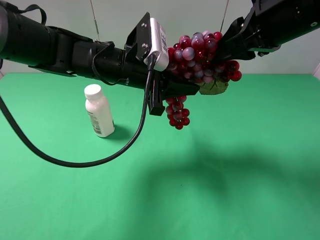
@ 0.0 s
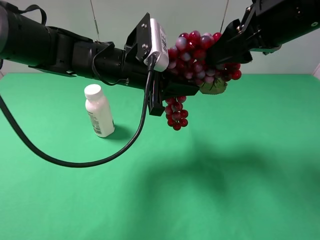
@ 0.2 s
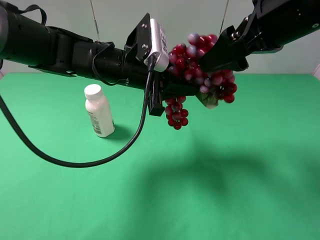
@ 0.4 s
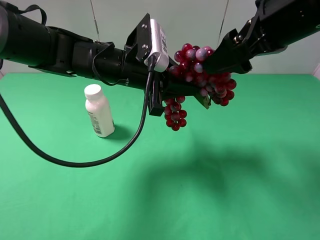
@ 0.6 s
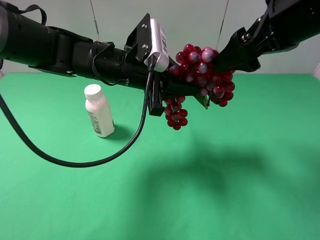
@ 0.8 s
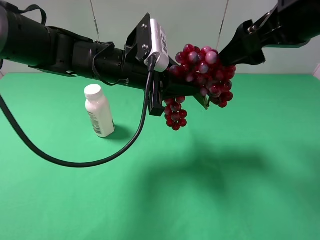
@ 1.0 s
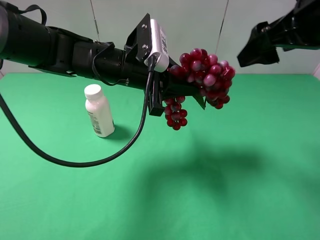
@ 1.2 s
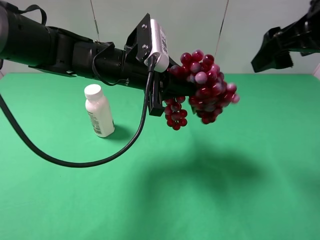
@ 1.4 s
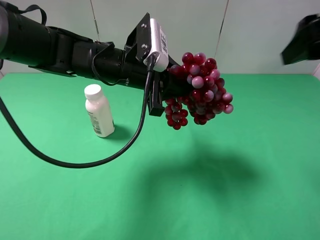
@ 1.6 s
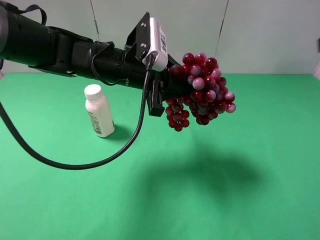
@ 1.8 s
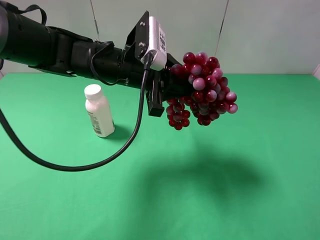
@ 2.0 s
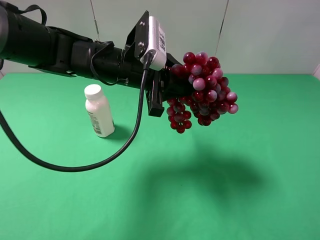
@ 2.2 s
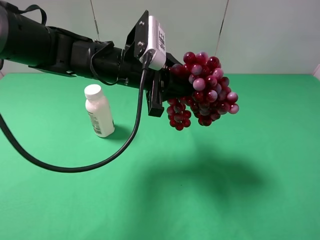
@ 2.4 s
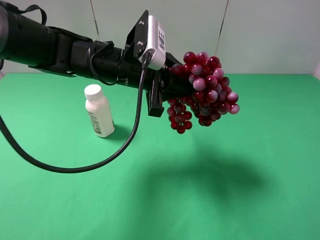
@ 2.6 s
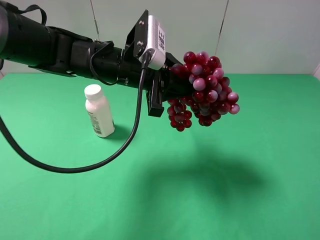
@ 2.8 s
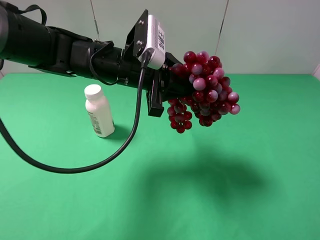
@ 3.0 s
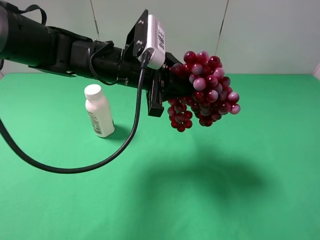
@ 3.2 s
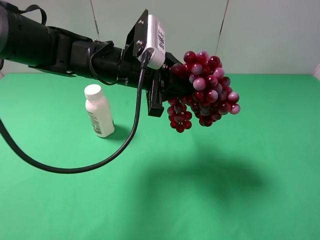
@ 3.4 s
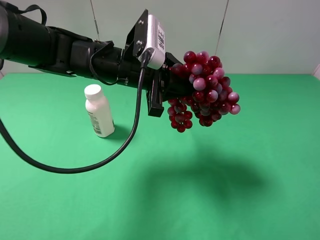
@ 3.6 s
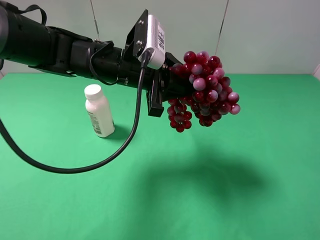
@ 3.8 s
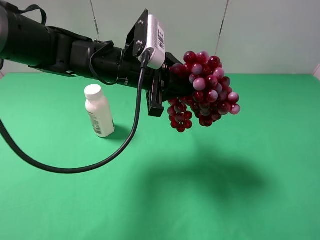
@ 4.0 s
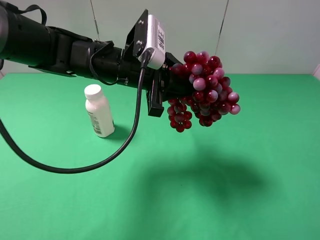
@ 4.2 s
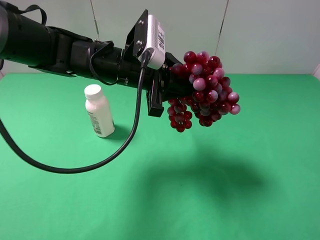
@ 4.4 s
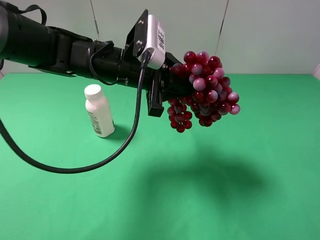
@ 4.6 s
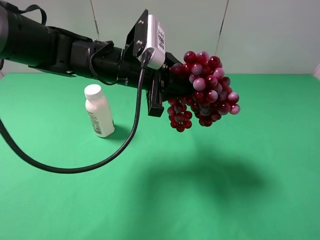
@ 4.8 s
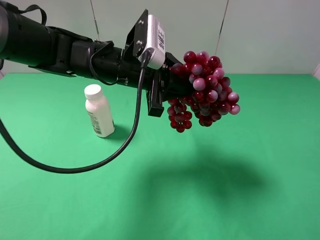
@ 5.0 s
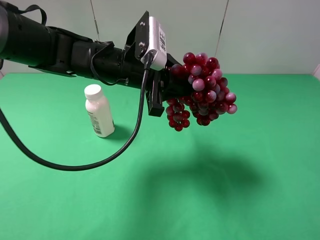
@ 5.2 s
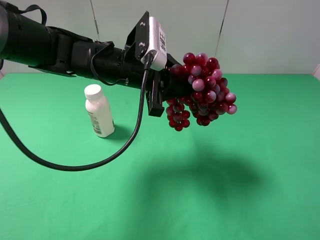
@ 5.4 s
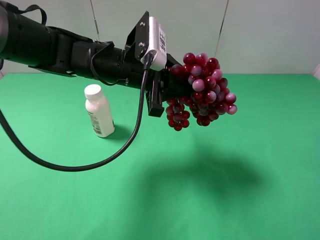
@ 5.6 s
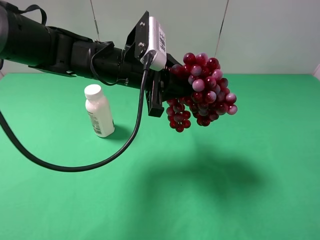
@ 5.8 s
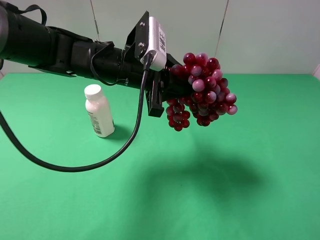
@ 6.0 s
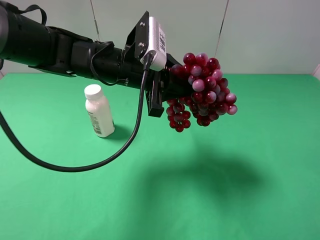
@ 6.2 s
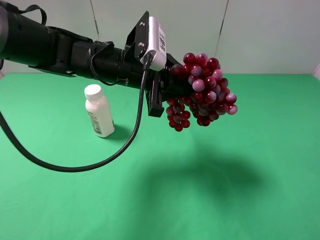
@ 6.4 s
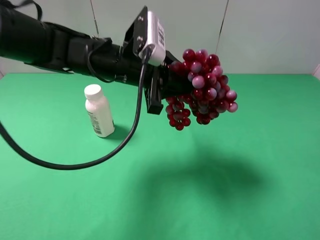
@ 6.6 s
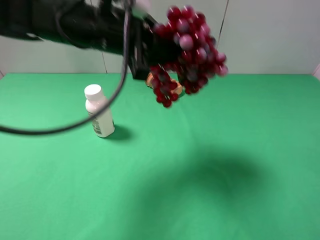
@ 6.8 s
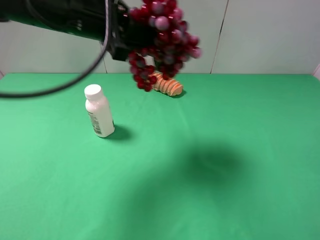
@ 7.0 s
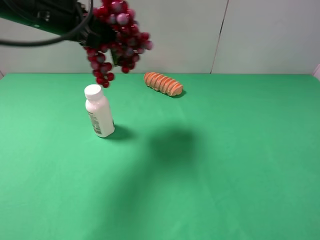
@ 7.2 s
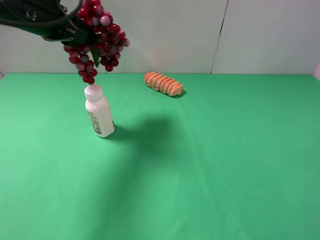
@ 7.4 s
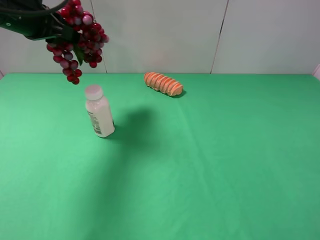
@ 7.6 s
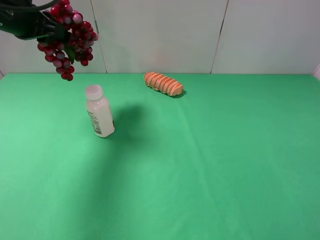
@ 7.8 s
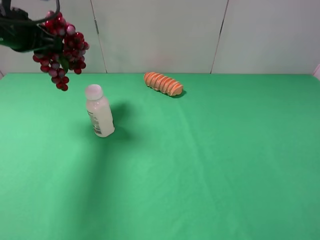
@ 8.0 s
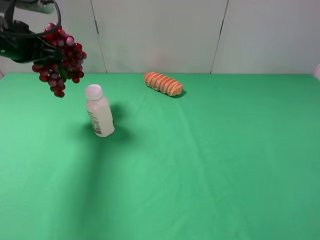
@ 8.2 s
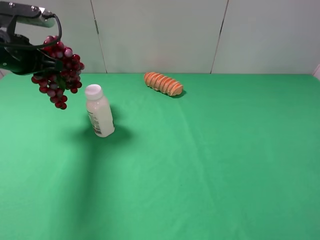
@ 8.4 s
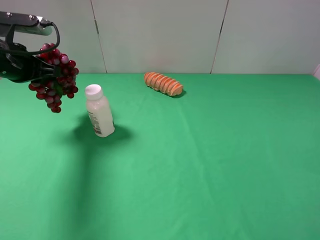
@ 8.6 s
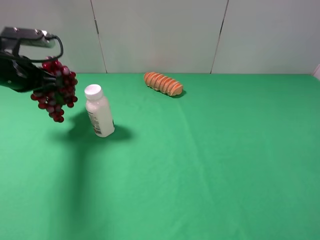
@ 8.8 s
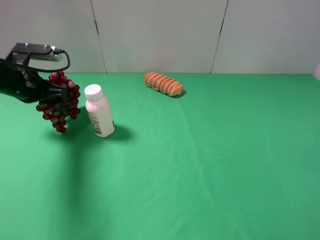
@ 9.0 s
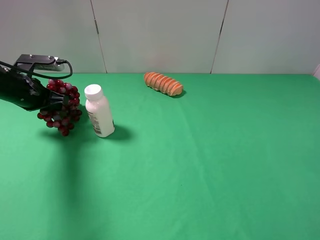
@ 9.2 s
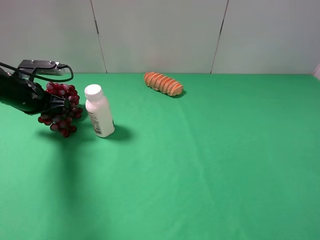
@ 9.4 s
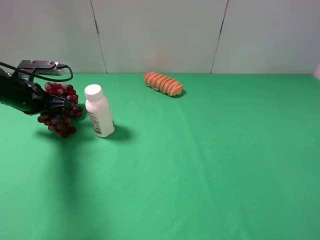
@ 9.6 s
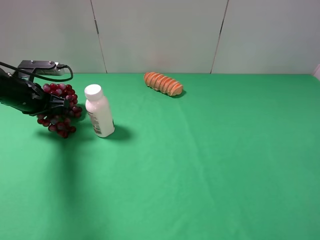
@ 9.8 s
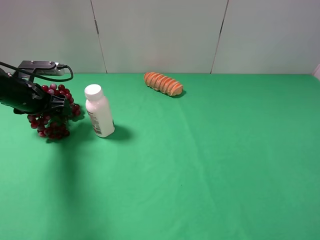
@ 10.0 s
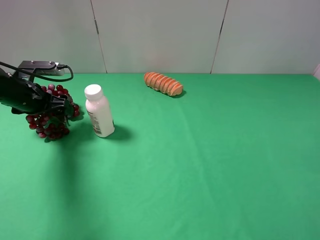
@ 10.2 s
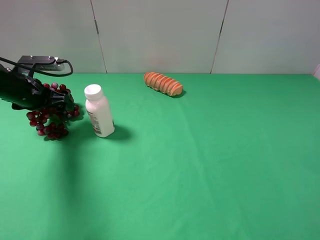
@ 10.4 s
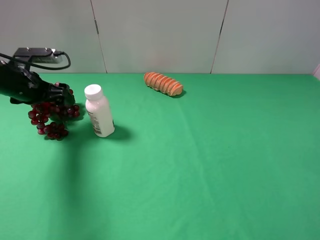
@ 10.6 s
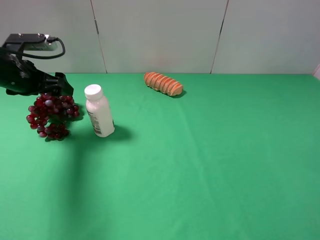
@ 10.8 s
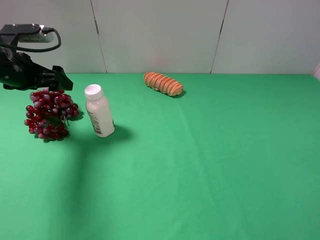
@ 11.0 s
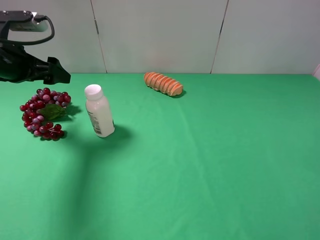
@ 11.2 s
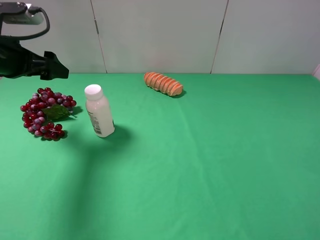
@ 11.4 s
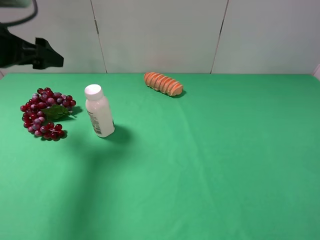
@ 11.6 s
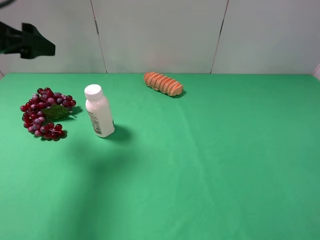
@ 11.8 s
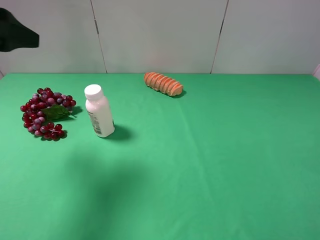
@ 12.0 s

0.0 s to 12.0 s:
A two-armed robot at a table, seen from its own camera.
Task of the whole recording: use the right gripper to pick up the item and transfer it from the right gripper to the left gripper.
Step, 0.6 to 10.6 s: The left gripper places grape on the left side of the table.
0.0 to 1.6 s: The right gripper shifts roughly 10 cm to the right, and opens.
1.6 to 3.0 s: The right gripper goes some 20 cm backward.
4.4 to 6.0 s: The two grippers keep their place.
6.0 to 7.6 s: The left gripper moves to the left and upward, approximately 20 cm.
7.6 to 9.0 s: The left gripper shifts roughly 15 cm downward.
9.0 to 10.4 s: The left gripper opens.
10.4 to 12.0 s: The left gripper is displaced upward and backward by roughly 20 cm.

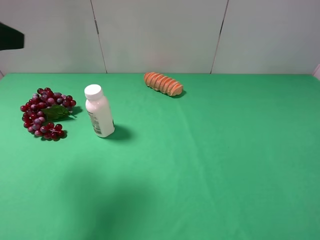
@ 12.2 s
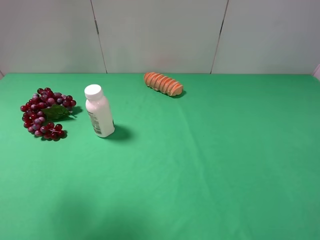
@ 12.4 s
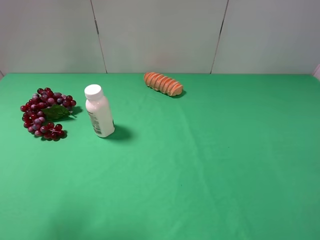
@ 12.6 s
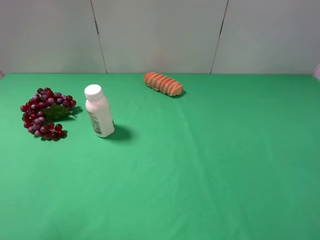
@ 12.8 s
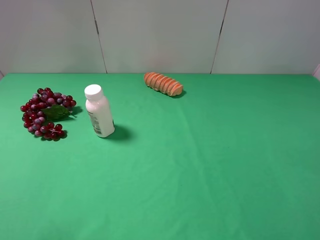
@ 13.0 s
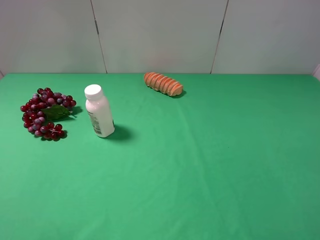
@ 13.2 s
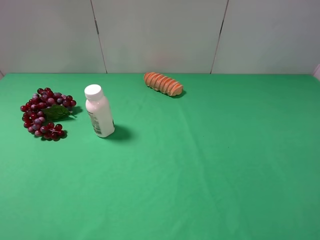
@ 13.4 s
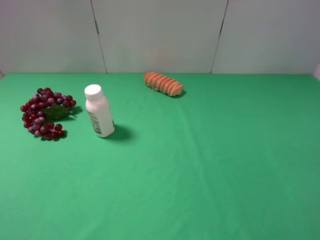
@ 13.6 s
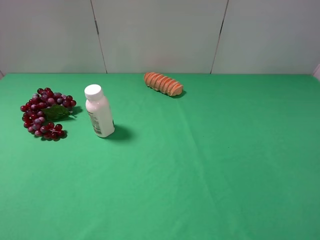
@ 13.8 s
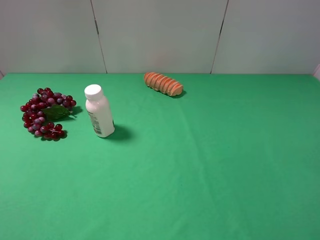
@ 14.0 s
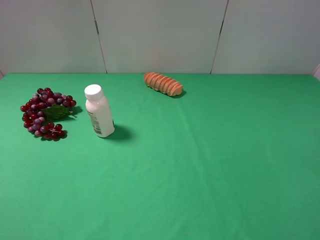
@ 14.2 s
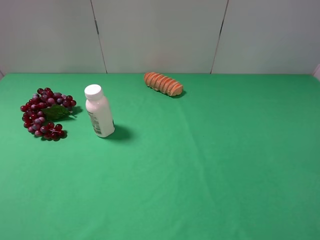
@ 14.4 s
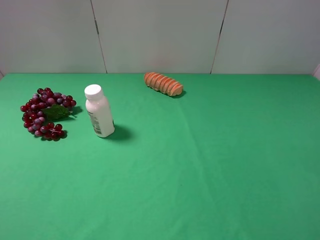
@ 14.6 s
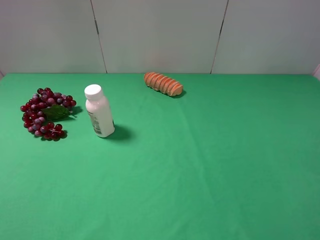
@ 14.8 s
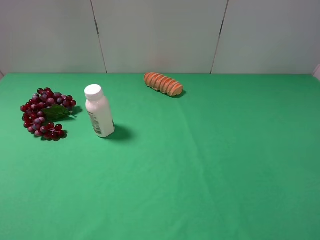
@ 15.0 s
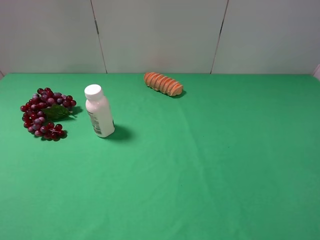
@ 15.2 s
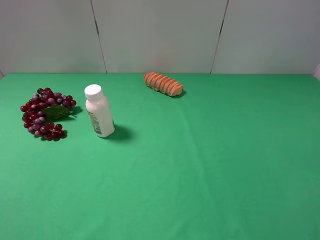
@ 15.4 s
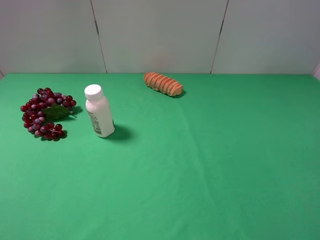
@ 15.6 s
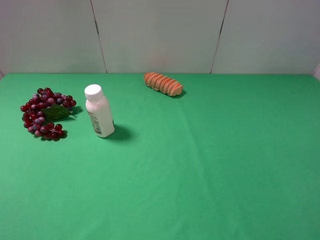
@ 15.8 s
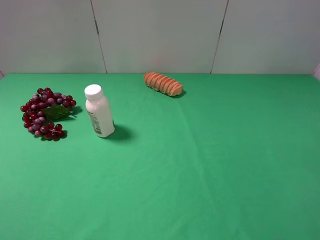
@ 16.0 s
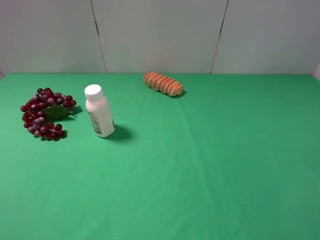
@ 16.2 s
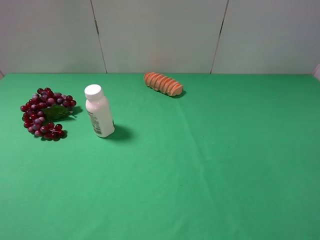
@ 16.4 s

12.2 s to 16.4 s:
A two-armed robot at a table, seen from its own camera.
Task of the whole recording: use the right gripper to pick up the item and transfer it from the right gripper to the left gripper.
12.2 to 13.6 s: The left gripper is displaced backward by about 20 cm.
15.0 to 16.4 s: Neither gripper changes place.
